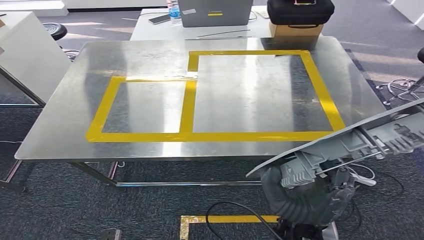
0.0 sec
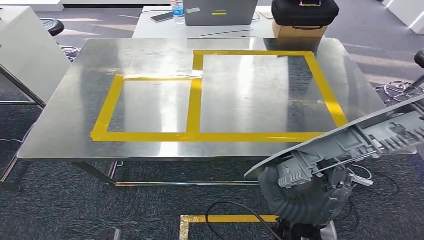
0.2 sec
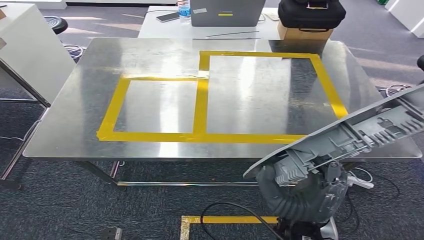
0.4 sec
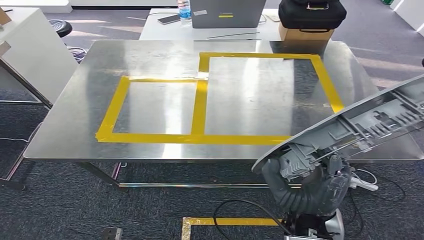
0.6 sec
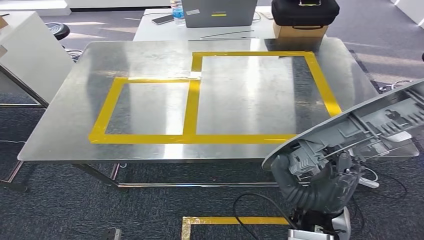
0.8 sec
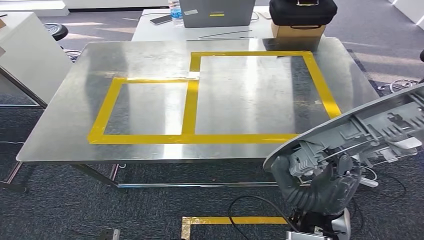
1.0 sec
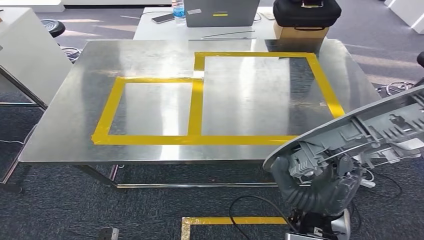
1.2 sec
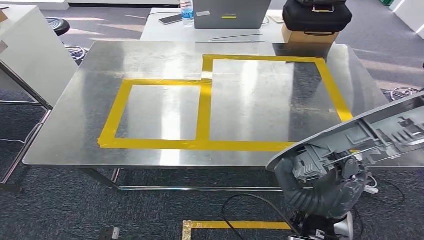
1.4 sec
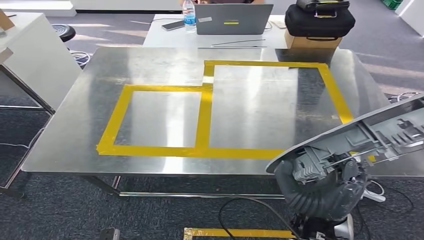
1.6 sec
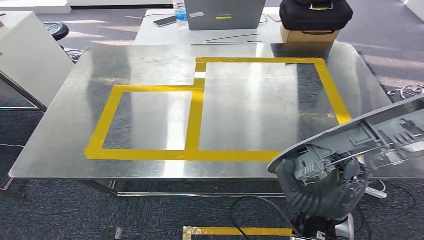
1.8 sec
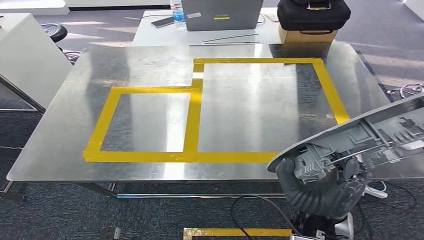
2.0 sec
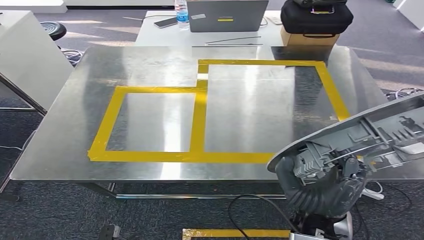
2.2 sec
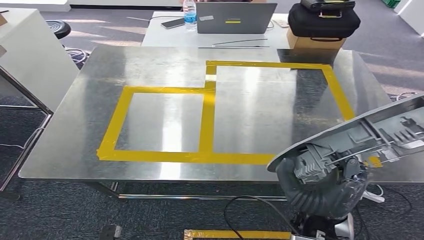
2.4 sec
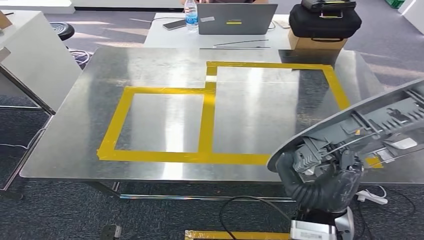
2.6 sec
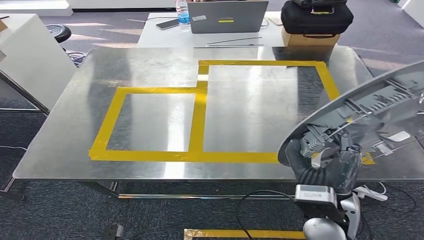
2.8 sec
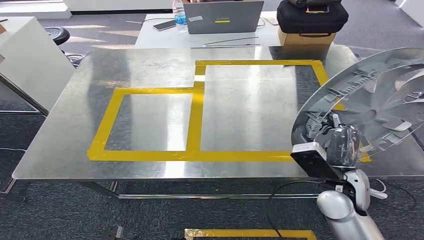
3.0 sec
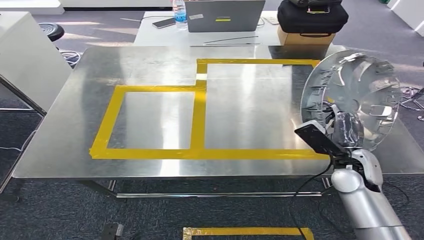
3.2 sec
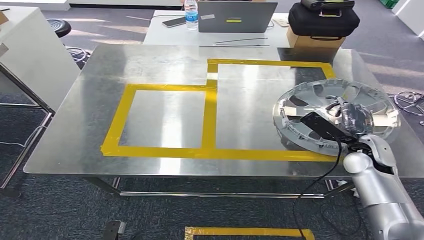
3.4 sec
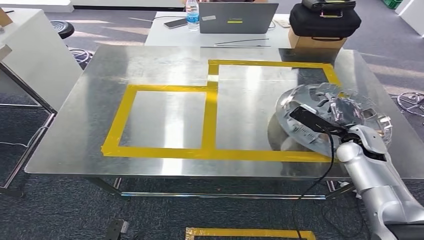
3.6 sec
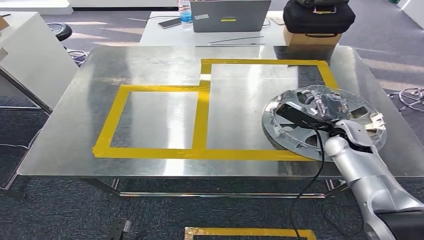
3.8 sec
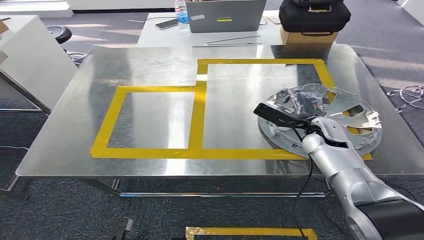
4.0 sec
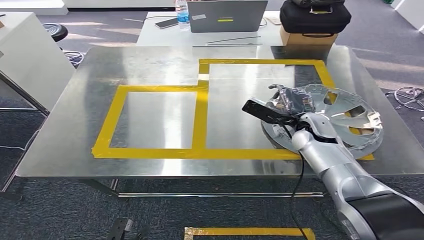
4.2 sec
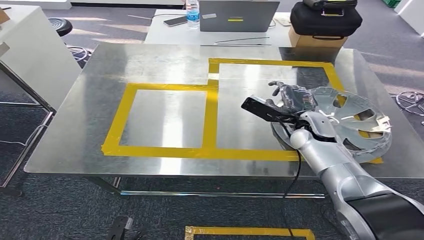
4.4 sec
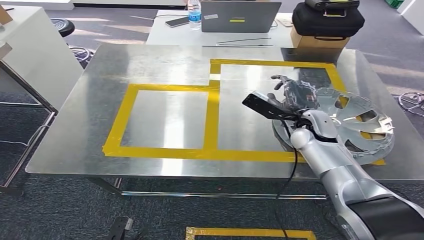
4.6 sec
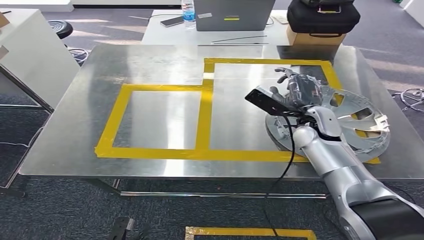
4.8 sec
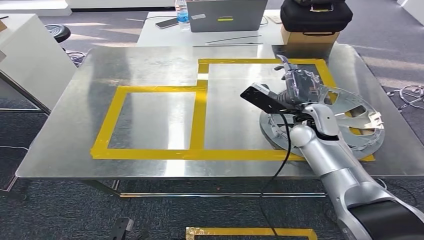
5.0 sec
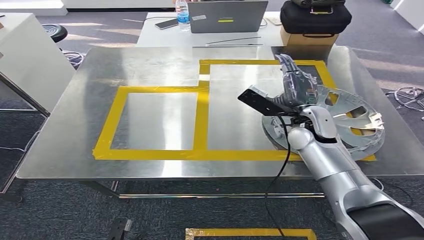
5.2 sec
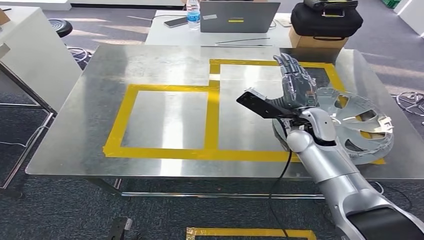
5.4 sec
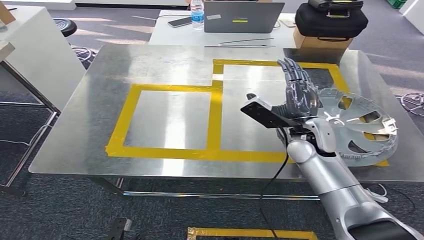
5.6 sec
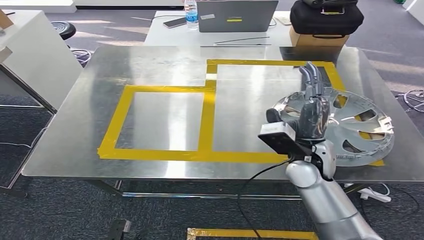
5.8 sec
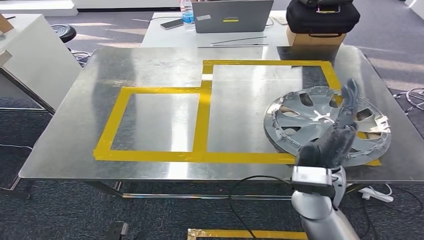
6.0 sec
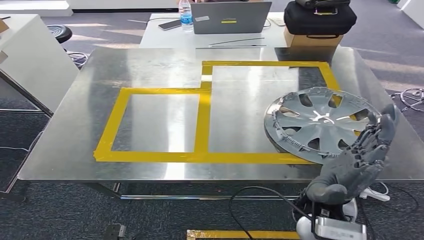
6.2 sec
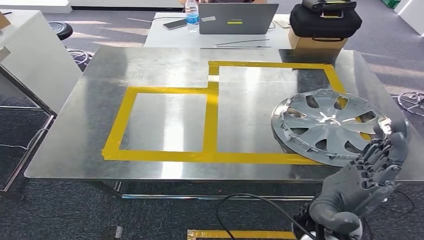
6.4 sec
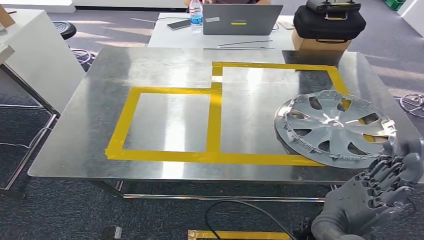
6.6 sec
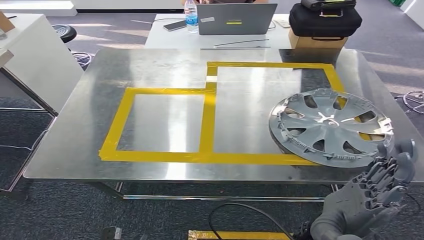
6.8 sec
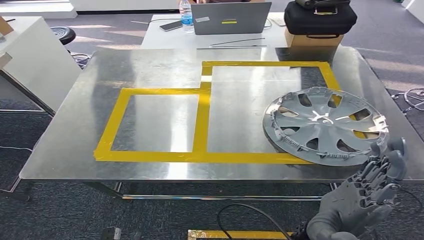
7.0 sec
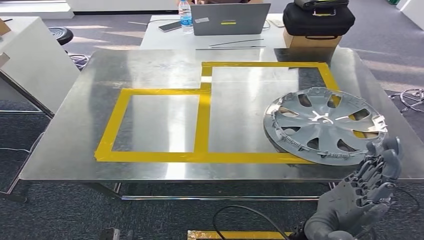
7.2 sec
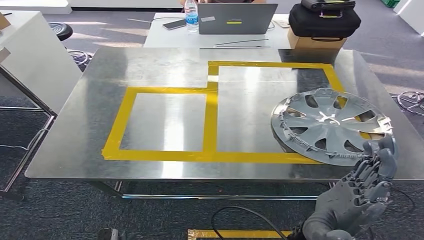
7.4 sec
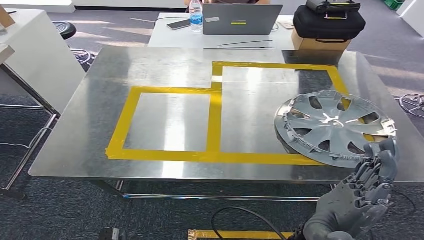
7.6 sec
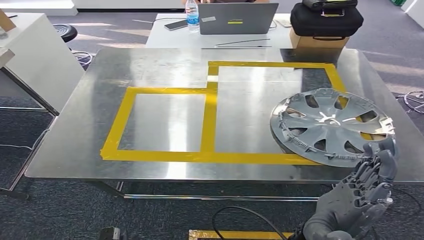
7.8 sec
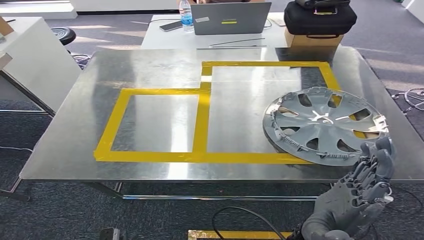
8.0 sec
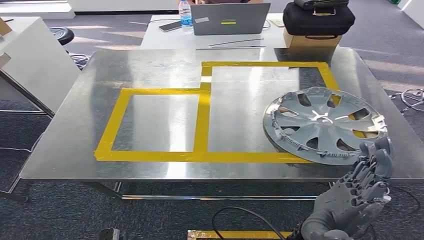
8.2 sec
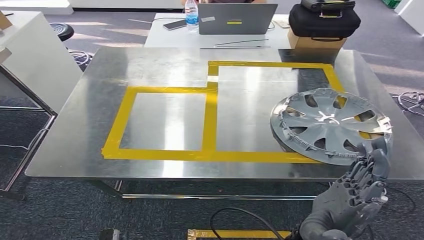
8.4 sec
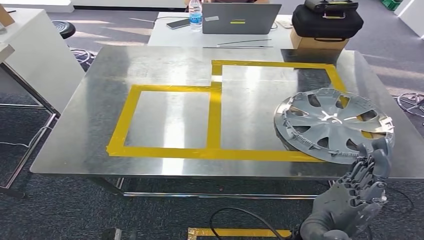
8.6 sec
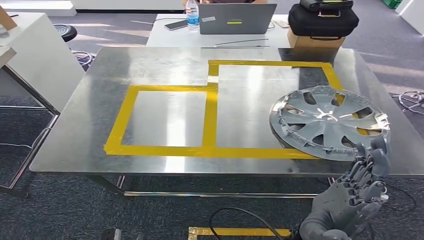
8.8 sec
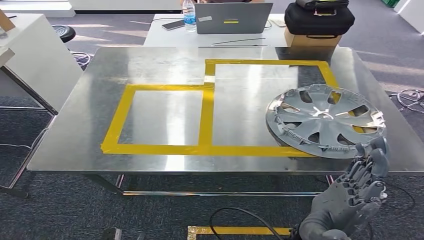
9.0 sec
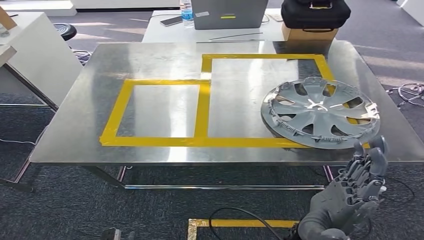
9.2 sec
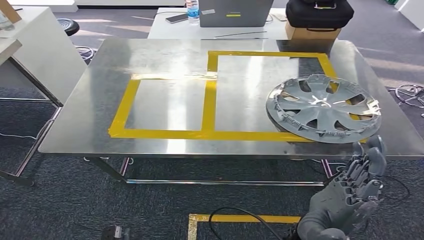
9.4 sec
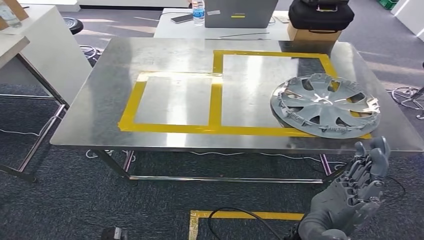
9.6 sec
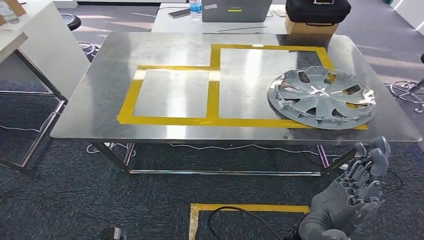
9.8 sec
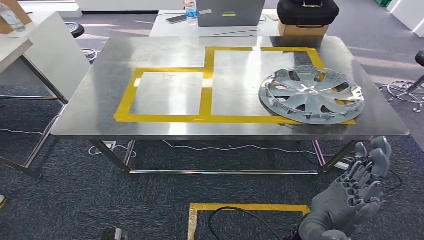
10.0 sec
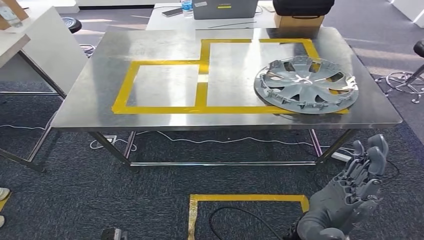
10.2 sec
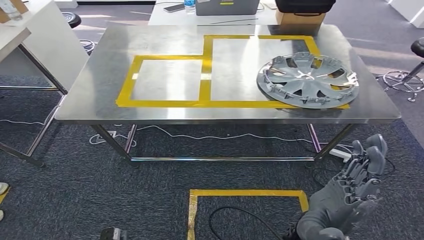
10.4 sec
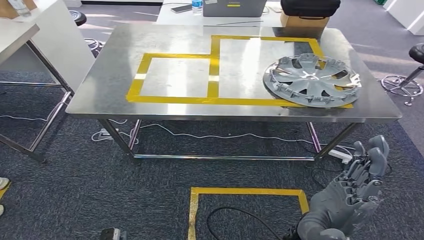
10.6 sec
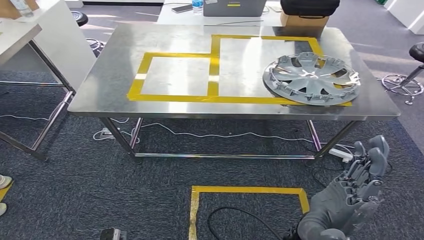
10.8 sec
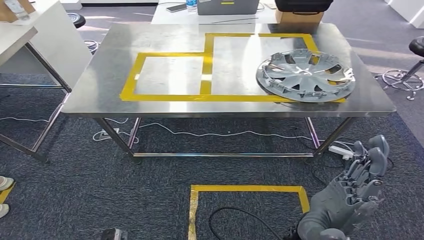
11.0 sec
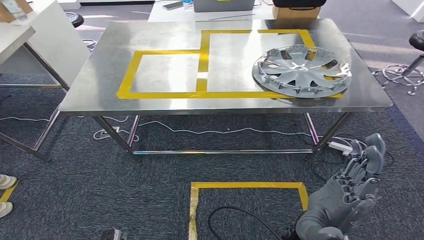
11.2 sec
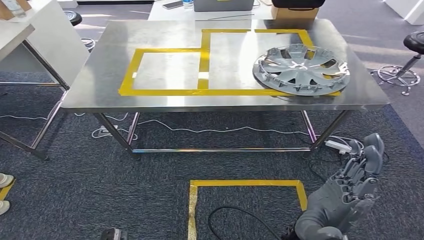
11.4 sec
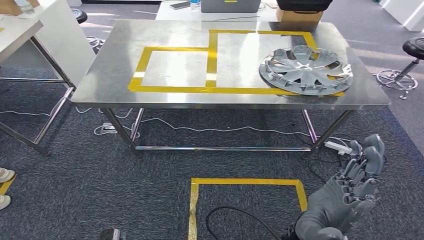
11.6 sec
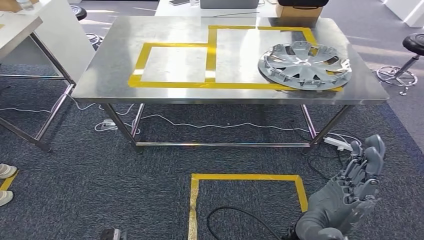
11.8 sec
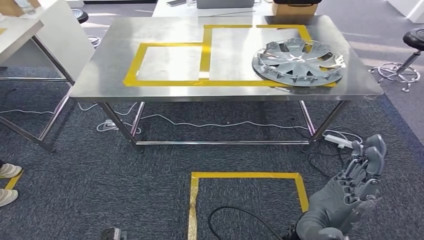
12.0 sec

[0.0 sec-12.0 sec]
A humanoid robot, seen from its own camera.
Step, 0.0 sec to 7.8 sec: Insert the small component into the corresponding slot on the workbench.

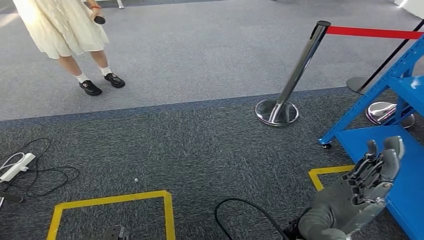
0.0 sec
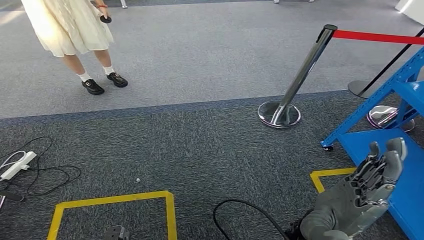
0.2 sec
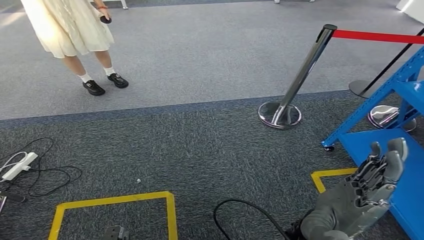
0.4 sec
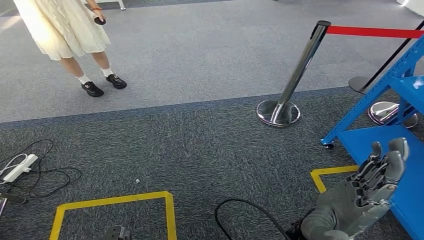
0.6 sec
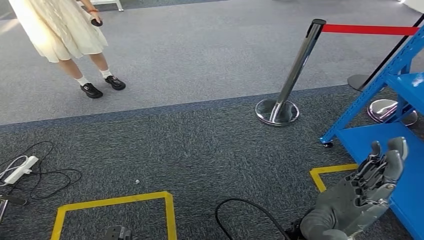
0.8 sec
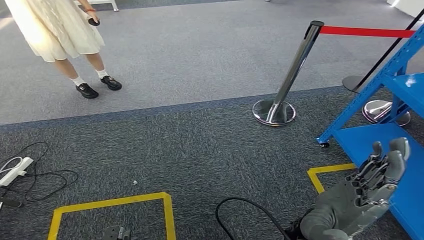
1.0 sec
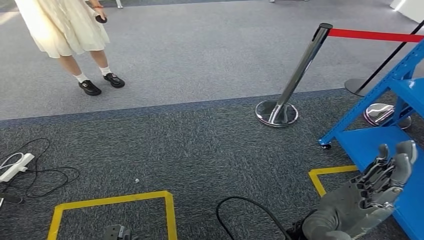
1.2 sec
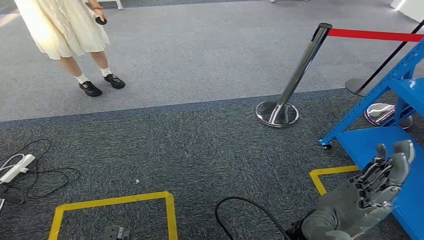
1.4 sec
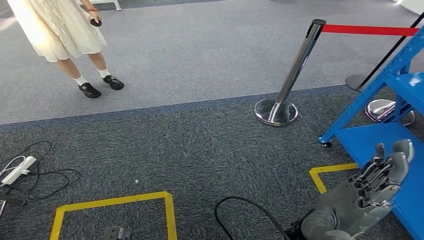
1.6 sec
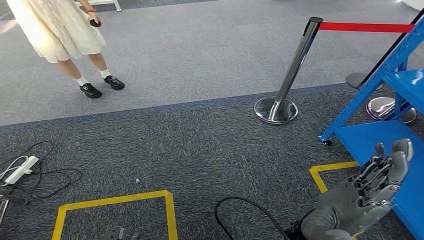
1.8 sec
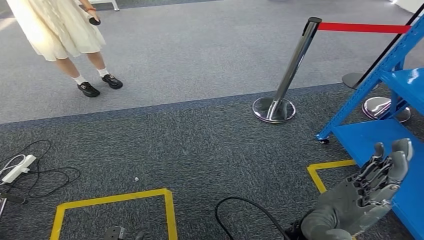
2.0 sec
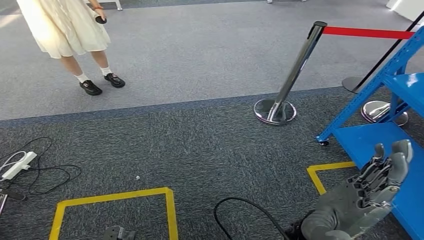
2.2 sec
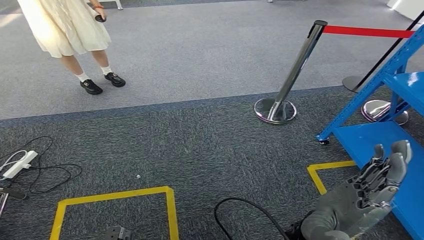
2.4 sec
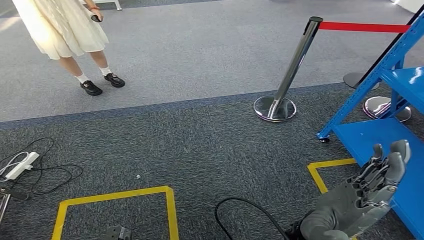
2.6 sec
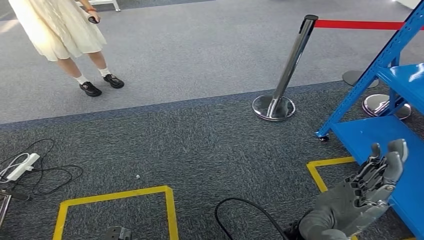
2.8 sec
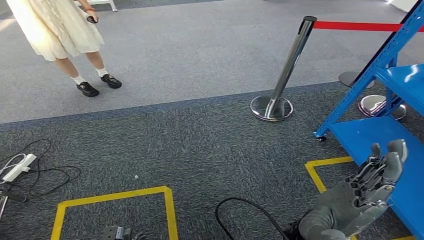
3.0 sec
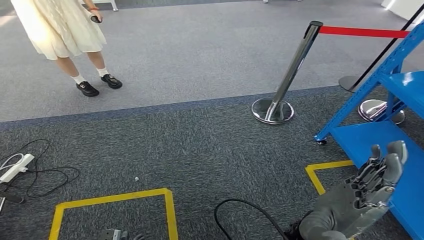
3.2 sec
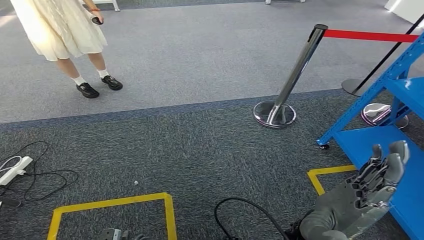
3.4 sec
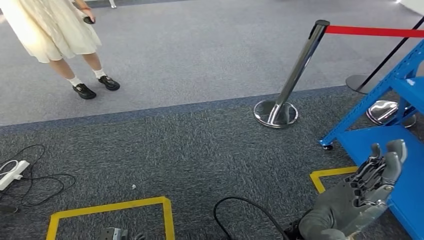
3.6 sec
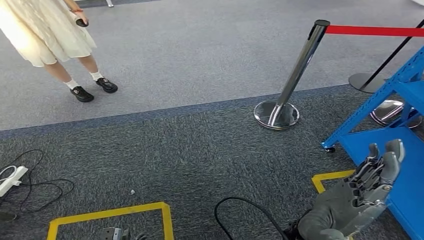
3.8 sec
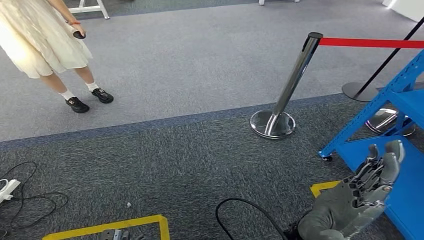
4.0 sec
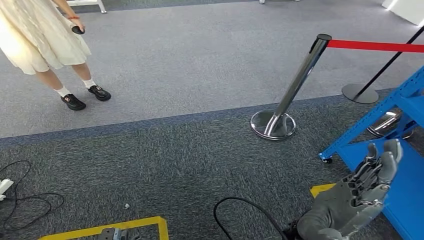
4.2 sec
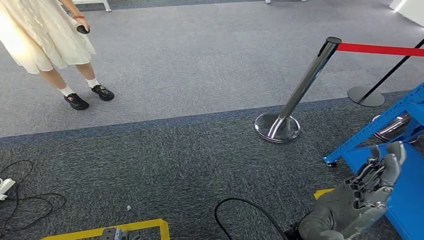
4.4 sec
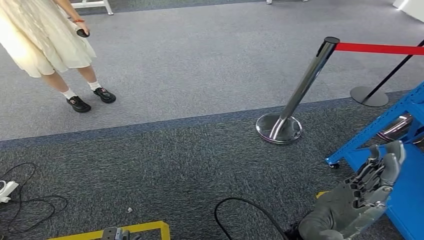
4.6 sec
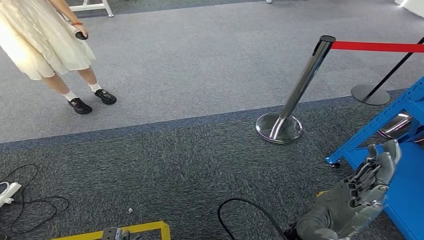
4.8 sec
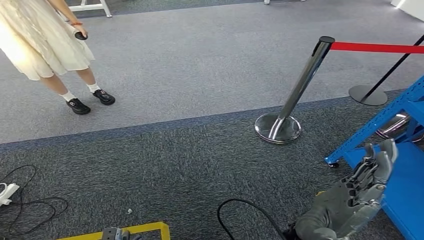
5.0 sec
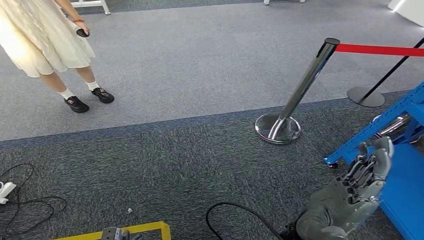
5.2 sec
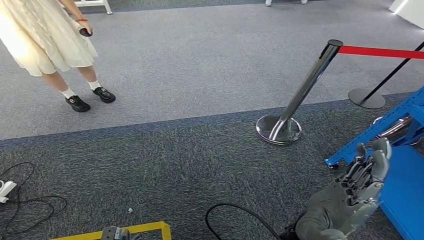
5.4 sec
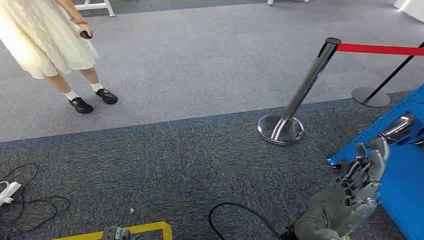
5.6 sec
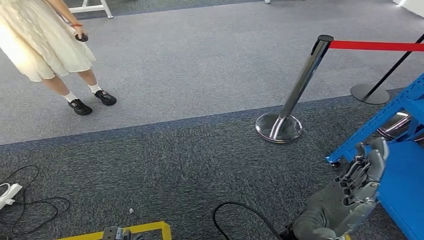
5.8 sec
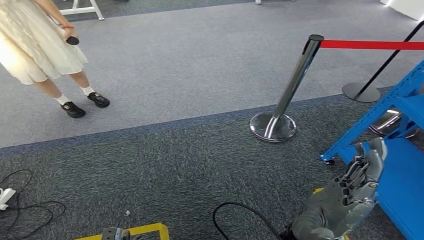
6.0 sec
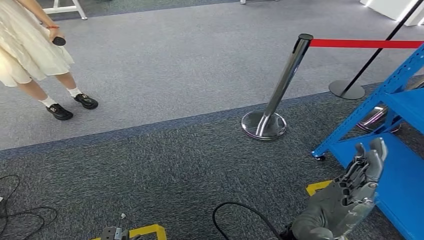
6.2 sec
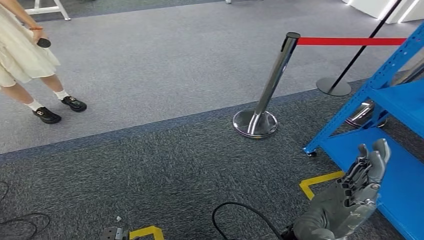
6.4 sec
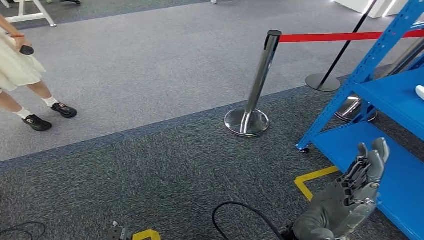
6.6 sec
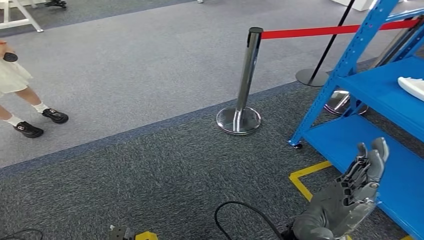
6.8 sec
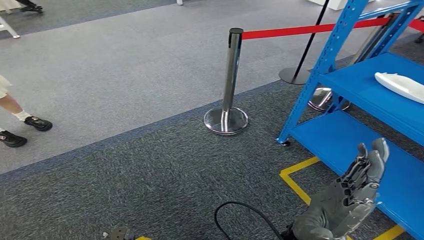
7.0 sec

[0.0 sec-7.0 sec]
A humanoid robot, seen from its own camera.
0.0 sec to 1.4 sec: The hands stay close to where they were, moving slightly.
1.4 sec to 2.8 sec: The two hands keep their place.
4.2 sec to 5.6 sec: The hands stay close to where they were, moving slightly.
